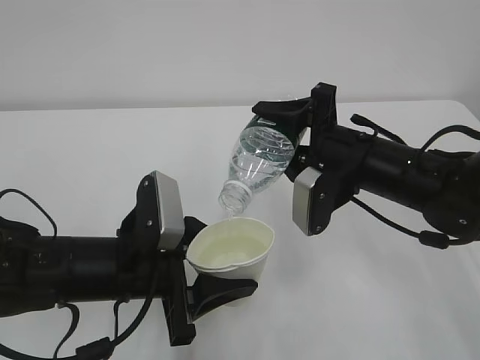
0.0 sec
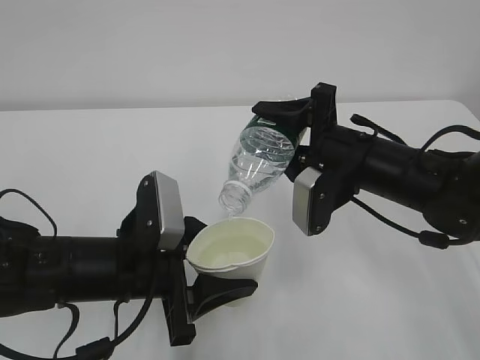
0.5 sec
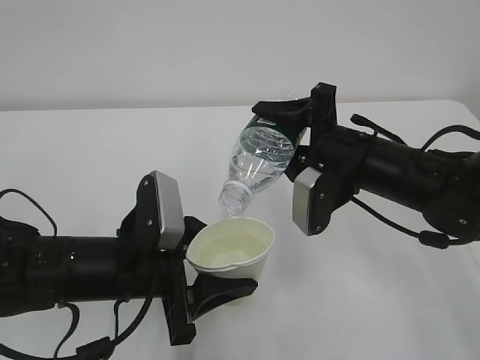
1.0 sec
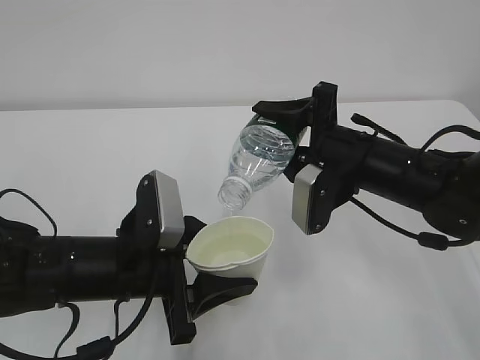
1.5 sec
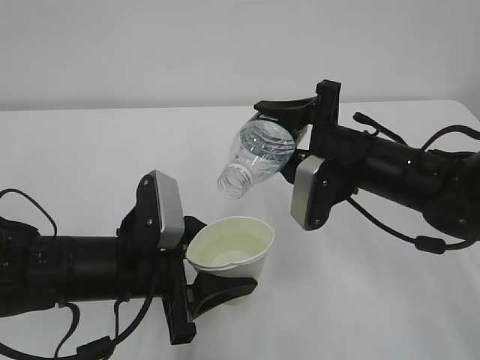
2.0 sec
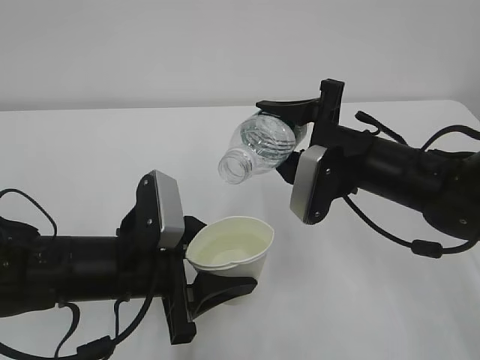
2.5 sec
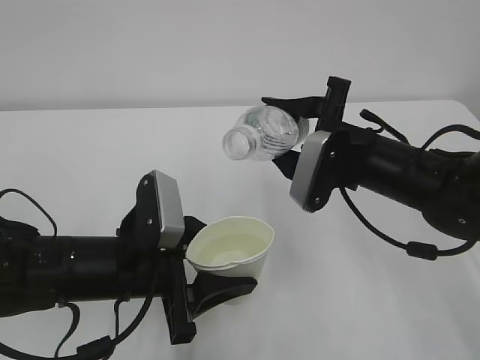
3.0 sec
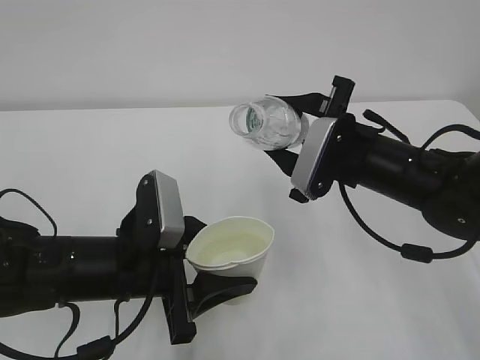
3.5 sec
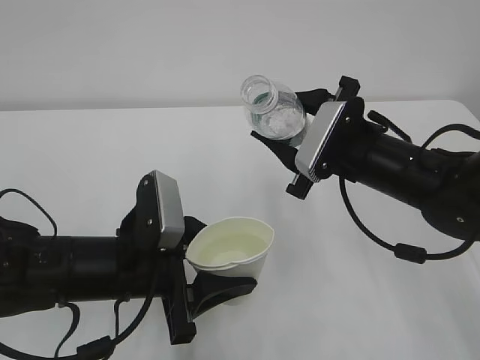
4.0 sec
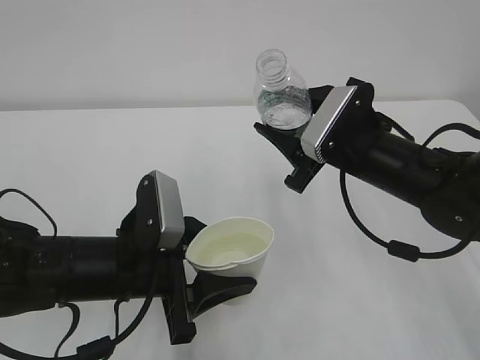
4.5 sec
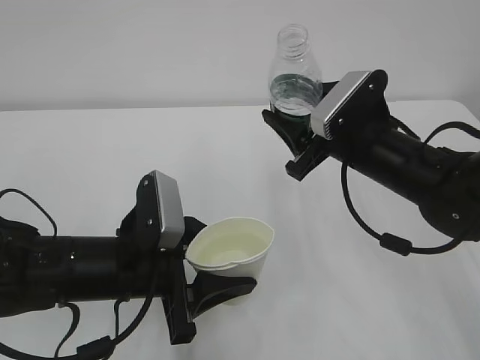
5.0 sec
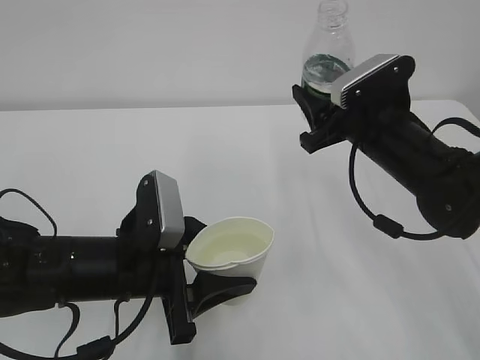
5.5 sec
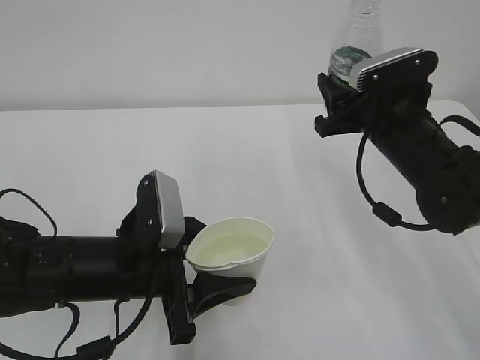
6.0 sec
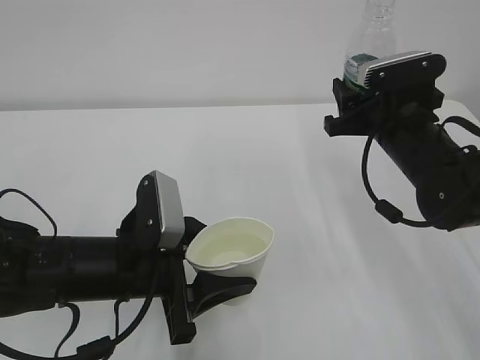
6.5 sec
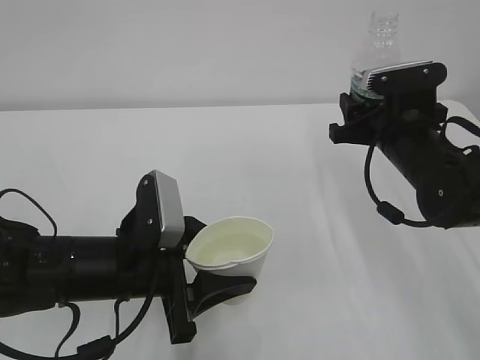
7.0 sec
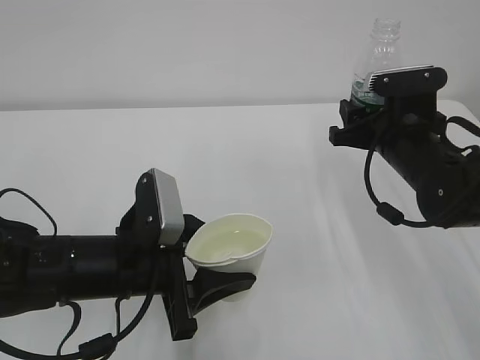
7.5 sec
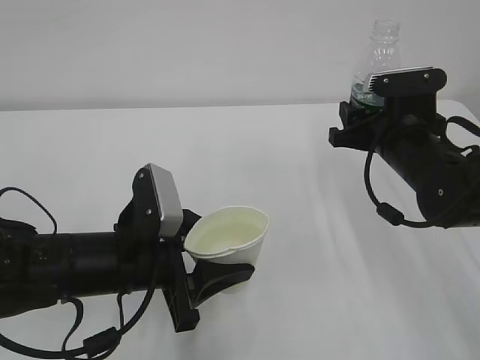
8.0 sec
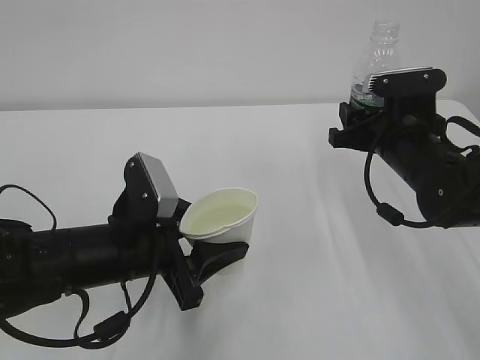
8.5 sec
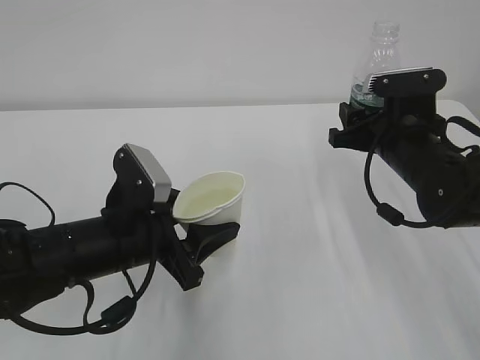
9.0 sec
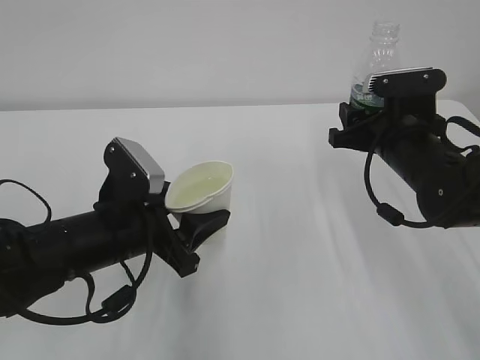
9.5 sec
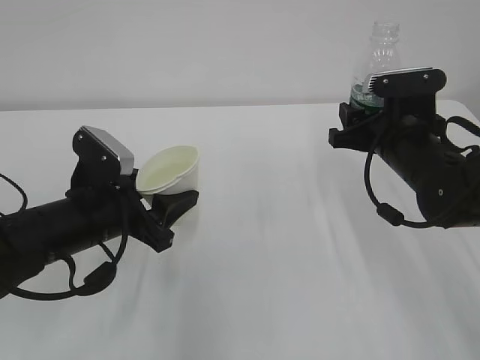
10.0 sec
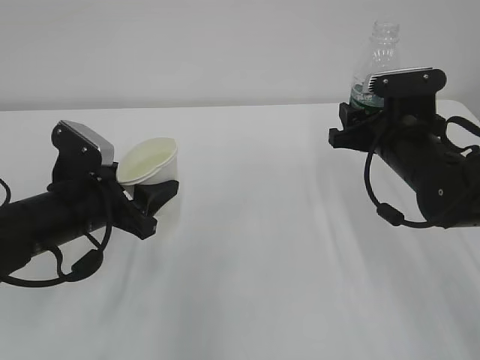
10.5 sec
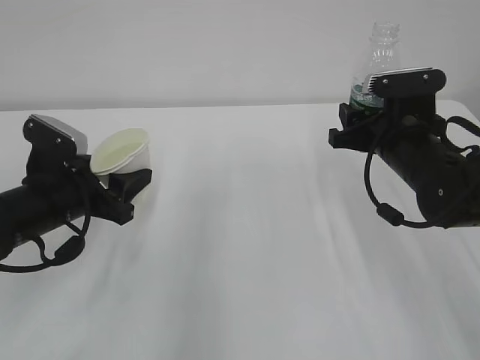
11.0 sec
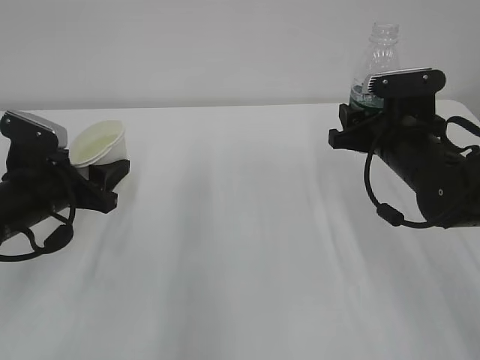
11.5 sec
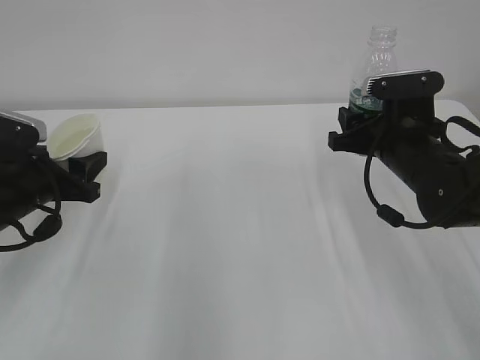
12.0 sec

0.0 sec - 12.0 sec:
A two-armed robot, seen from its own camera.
0.0 sec - 2.0 sec: The grippers make only small movements.
4.0 sec - 6.0 sec: The right gripper moves some 5 cm.
6.0 sec - 8.0 sec: The grippers make only small movements.
8.0 sec - 10.0 sec: The left gripper ends up approximately 5 cm from where it was.
10.0 sec - 12.0 sec: The left gripper heads to the left, covering some 10 cm.

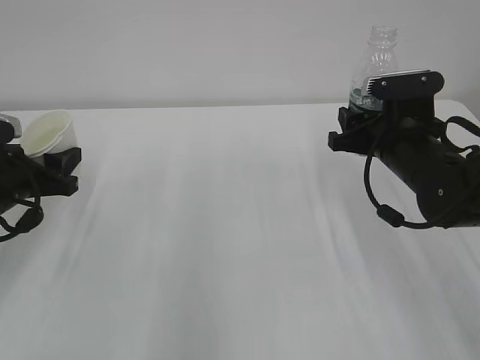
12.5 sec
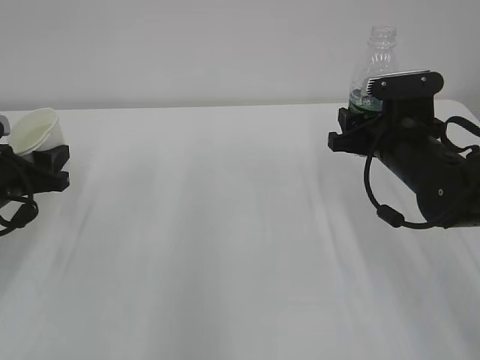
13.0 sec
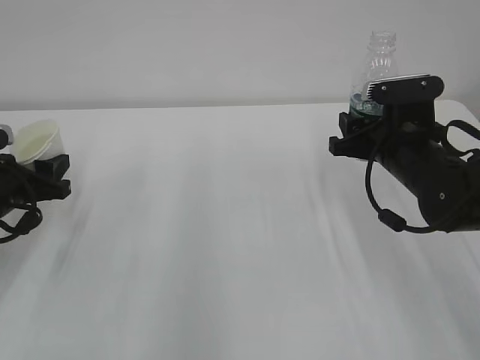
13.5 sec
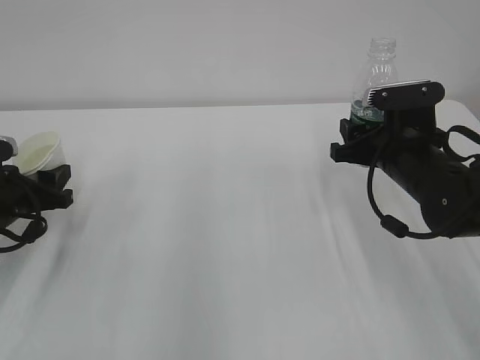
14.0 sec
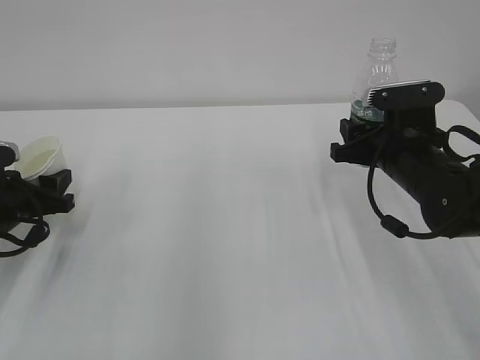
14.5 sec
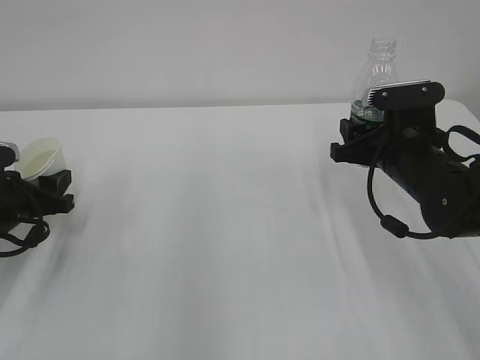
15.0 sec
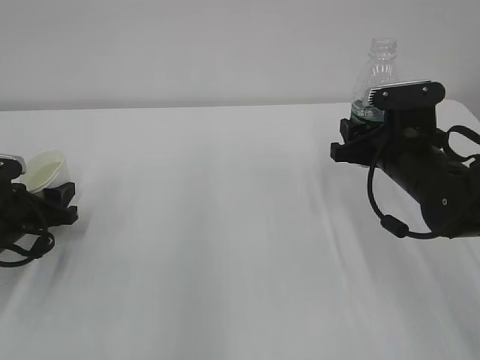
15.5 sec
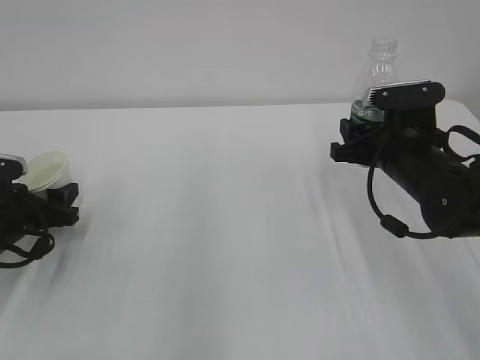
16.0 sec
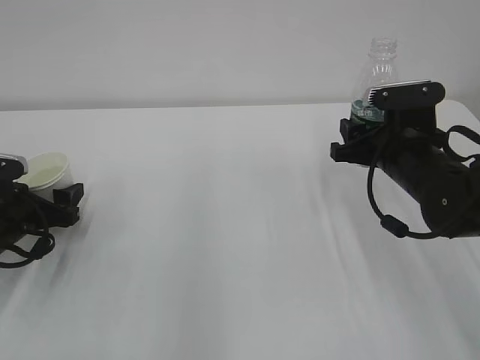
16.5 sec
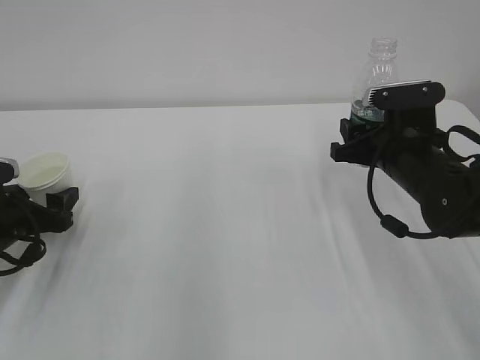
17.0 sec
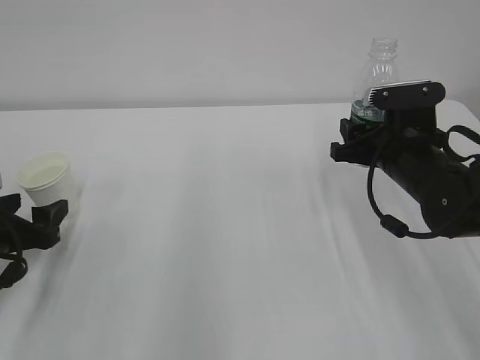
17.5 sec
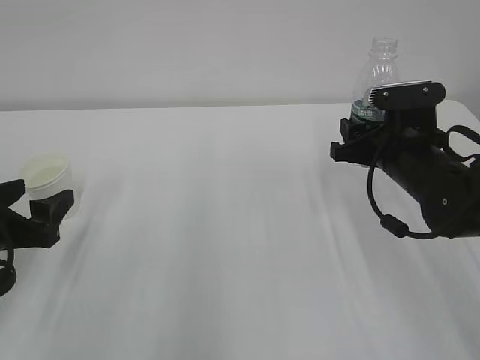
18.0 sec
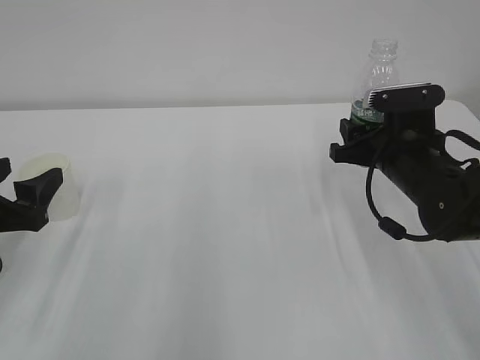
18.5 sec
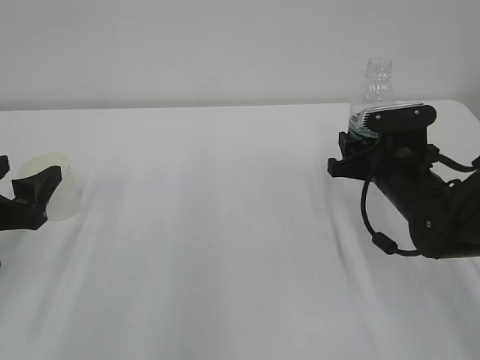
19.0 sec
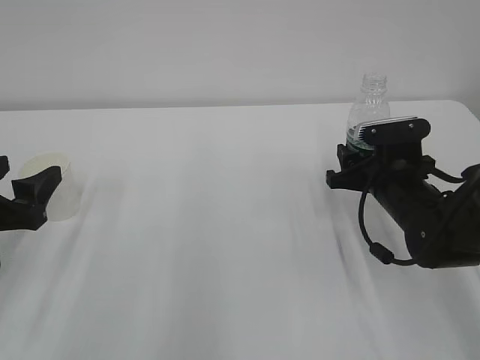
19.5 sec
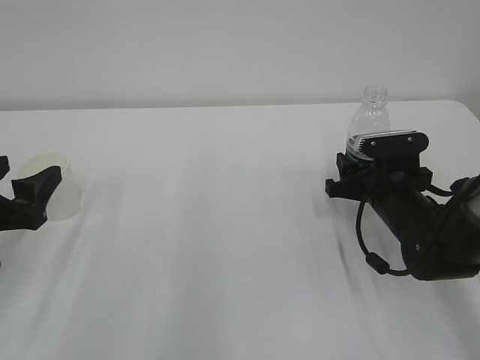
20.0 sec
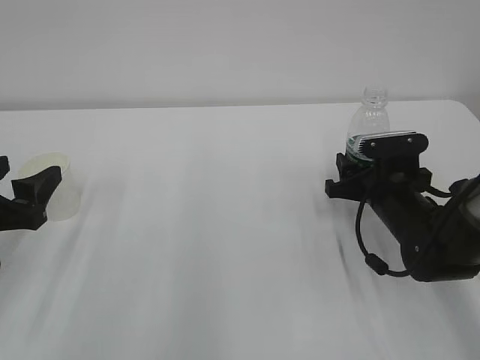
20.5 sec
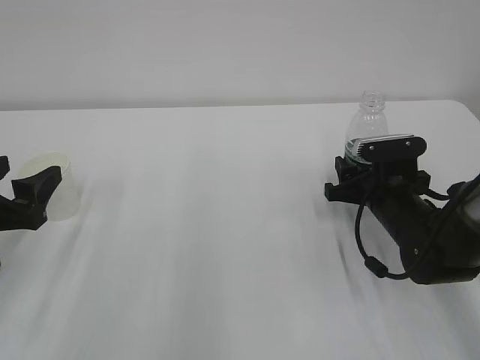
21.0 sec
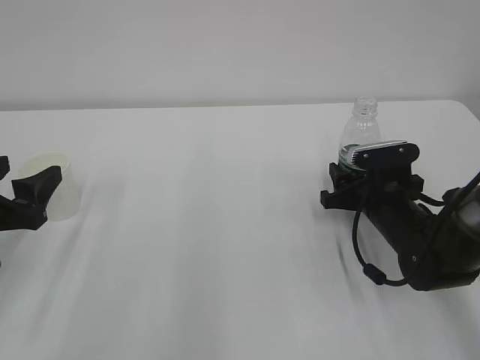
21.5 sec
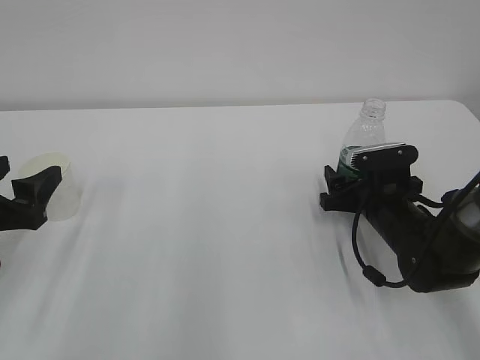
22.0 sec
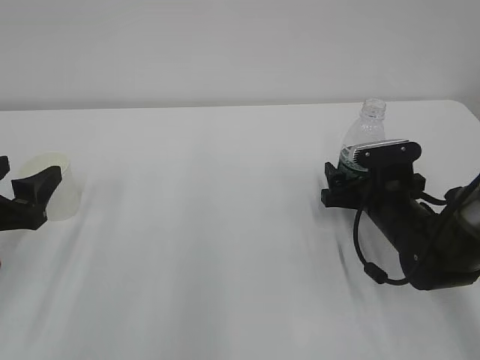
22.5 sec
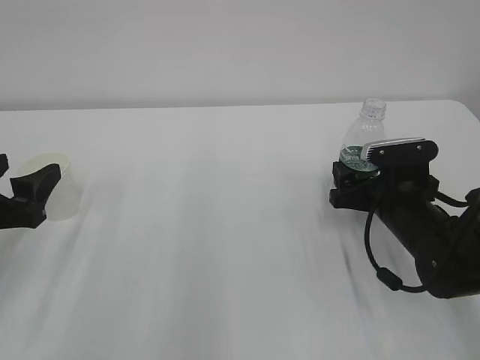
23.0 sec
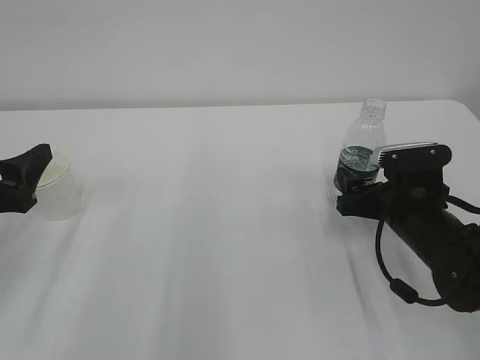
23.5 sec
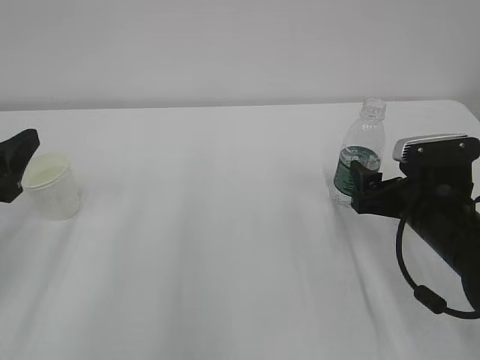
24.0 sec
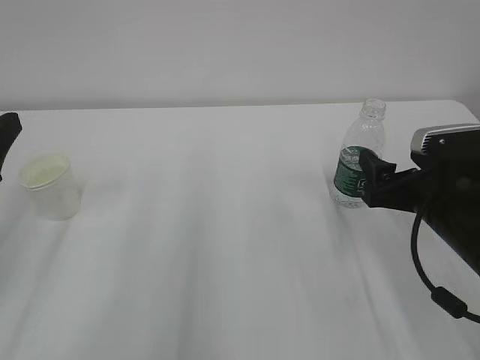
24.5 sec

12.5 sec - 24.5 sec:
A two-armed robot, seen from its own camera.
12.5 sec - 14.5 sec: The grippers move only a little.
14.5 sec - 16.5 sec: The left gripper opens.
16.5 sec - 18.5 sec: The left gripper moves upward and backward, roughly 10 cm.
18.5 sec - 20.5 sec: The right gripper shifts approximately 5 cm downward.
20.5 sec - 22.5 sec: The right gripper opens its fingers.
22.5 sec - 24.5 sec: The right gripper travels backward and upward by about 10 cm. The left gripper moves upward, approximately 5 cm.

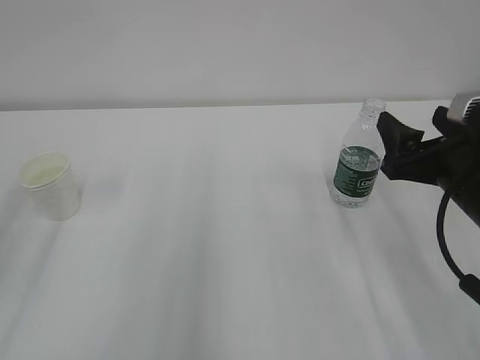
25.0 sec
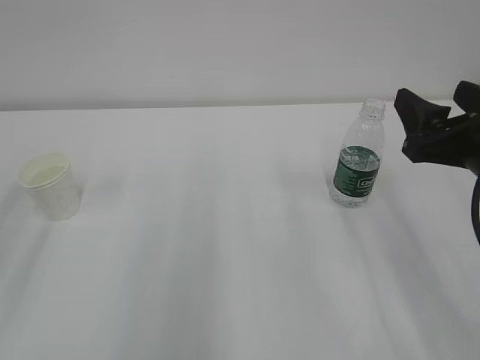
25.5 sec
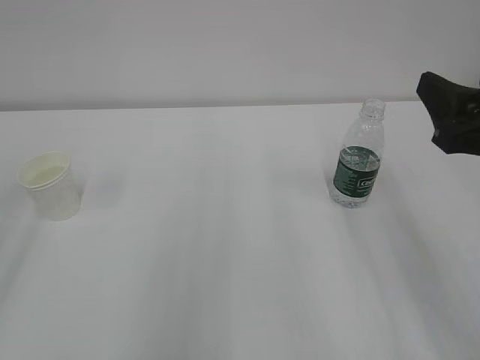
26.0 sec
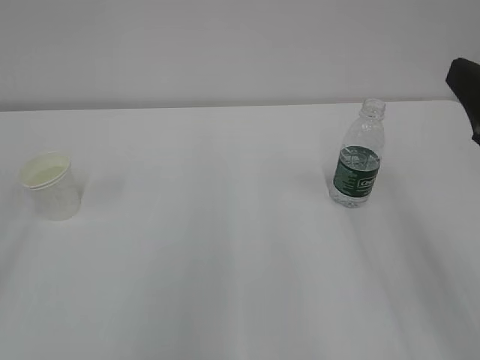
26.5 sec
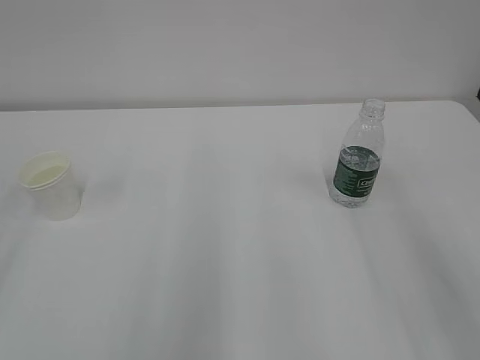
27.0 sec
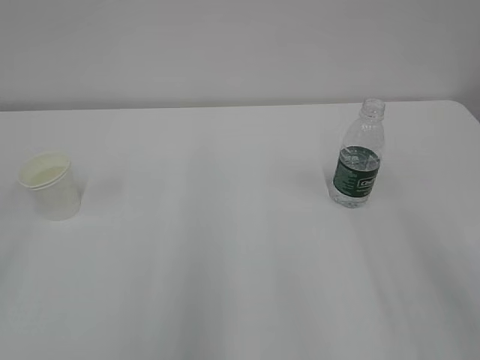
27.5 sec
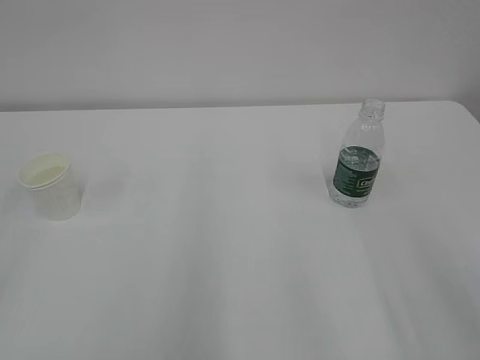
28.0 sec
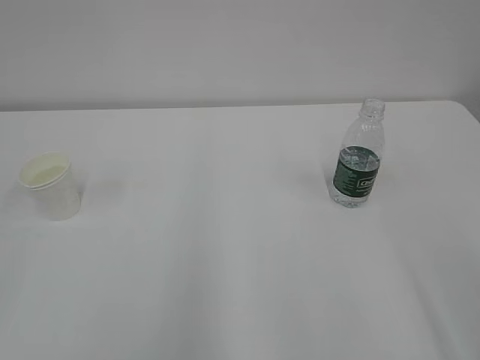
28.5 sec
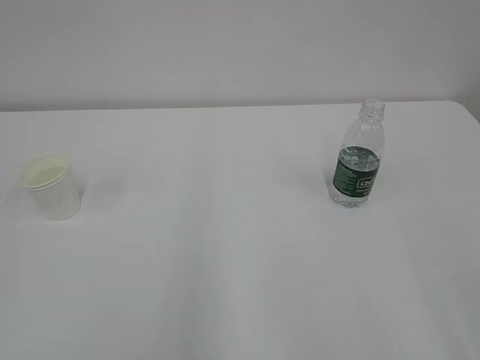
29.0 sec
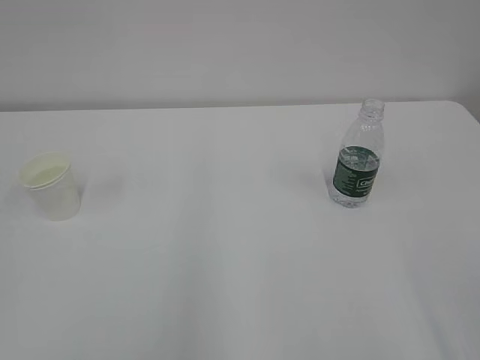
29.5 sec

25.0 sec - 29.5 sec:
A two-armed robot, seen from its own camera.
25.0 sec - 27.0 sec: The right gripper moves backward and upward, about 15 cm.
